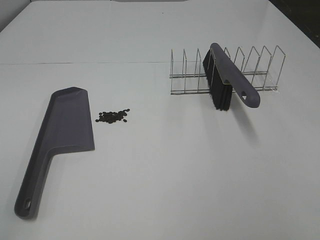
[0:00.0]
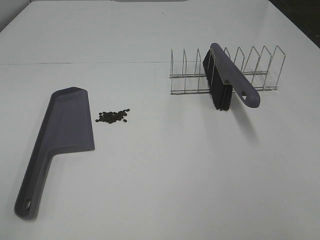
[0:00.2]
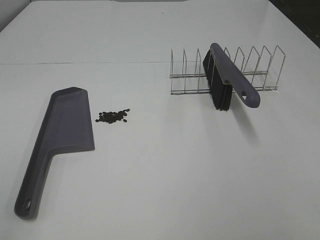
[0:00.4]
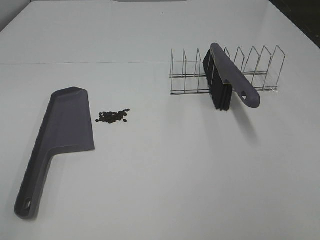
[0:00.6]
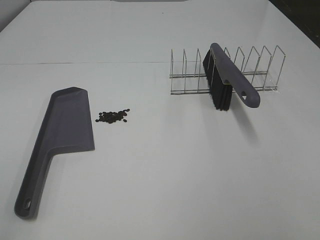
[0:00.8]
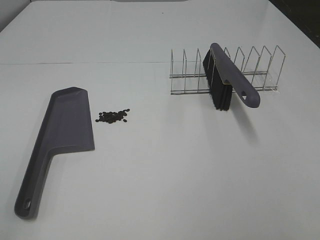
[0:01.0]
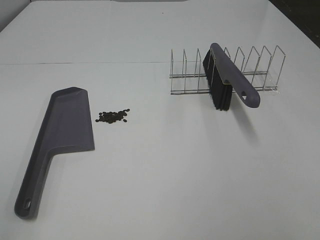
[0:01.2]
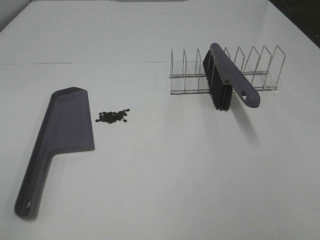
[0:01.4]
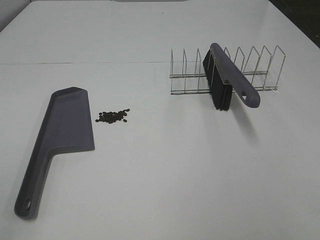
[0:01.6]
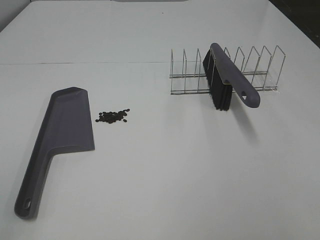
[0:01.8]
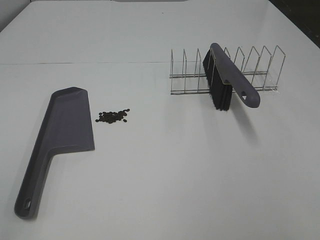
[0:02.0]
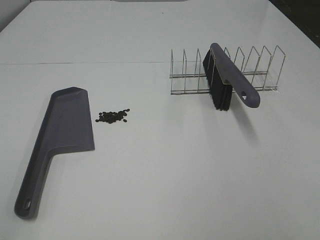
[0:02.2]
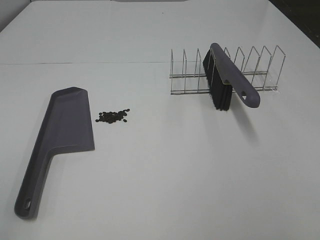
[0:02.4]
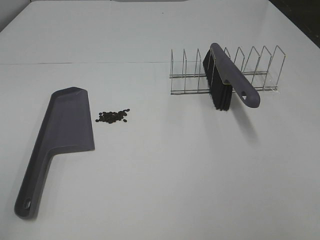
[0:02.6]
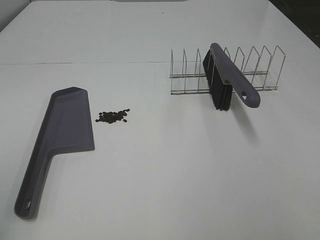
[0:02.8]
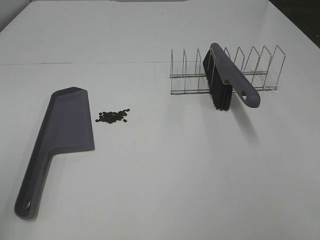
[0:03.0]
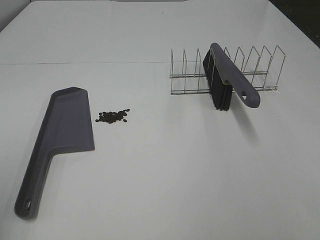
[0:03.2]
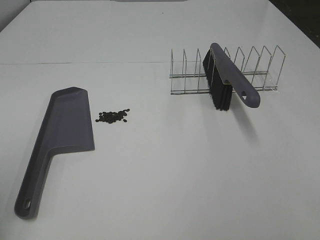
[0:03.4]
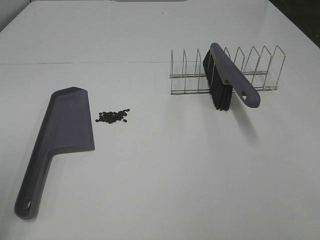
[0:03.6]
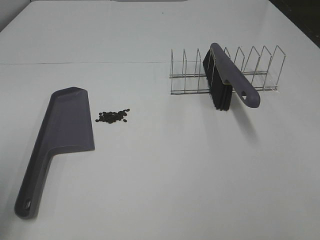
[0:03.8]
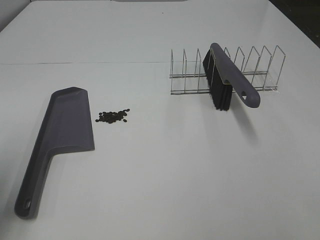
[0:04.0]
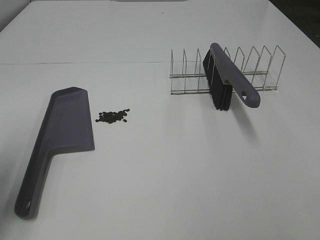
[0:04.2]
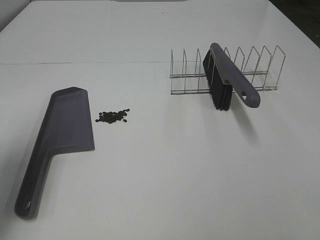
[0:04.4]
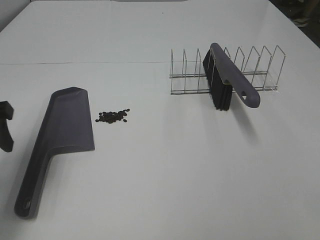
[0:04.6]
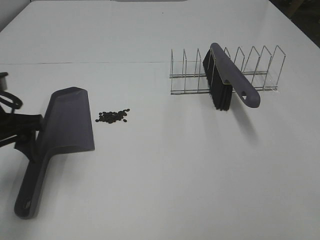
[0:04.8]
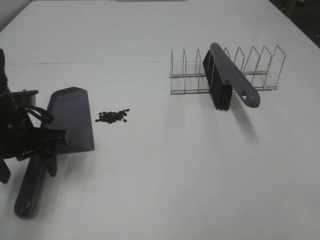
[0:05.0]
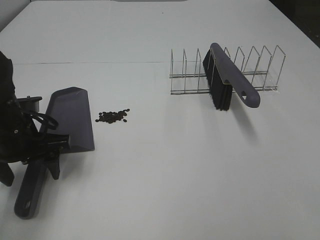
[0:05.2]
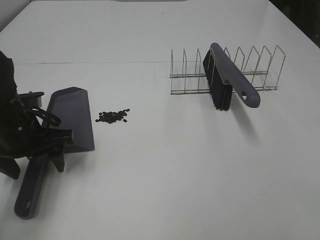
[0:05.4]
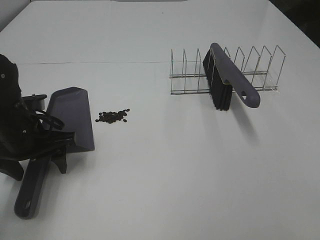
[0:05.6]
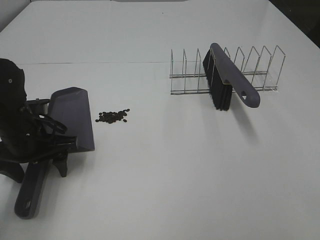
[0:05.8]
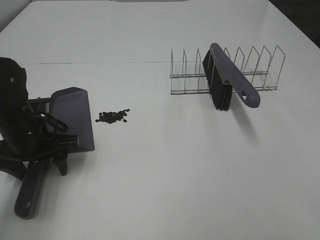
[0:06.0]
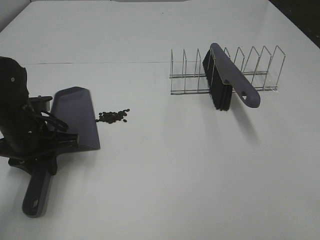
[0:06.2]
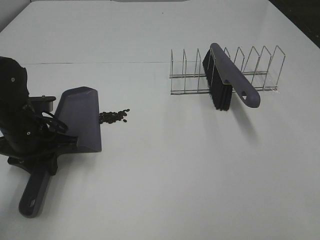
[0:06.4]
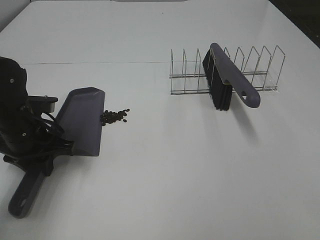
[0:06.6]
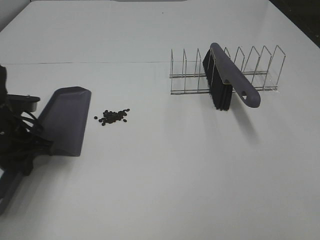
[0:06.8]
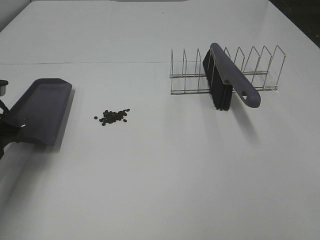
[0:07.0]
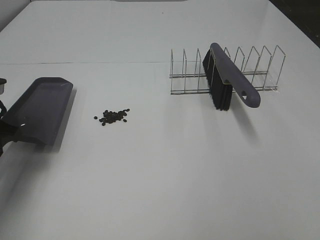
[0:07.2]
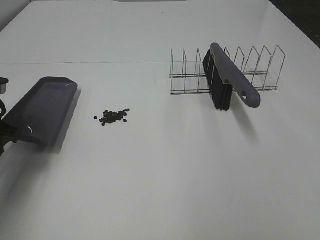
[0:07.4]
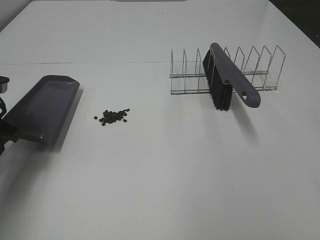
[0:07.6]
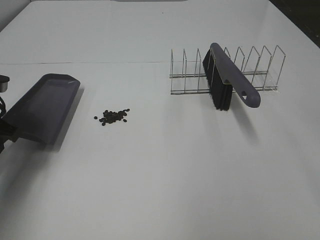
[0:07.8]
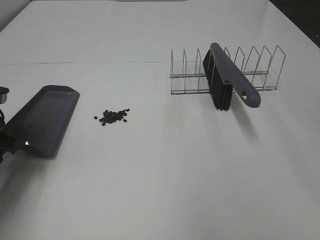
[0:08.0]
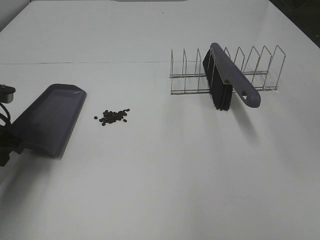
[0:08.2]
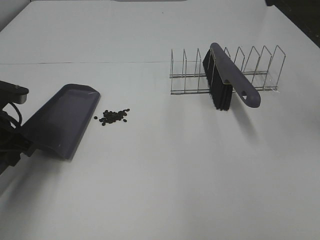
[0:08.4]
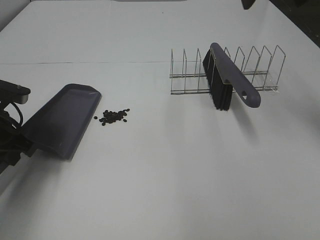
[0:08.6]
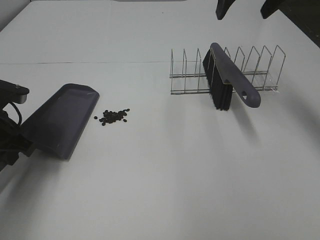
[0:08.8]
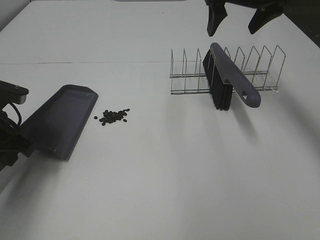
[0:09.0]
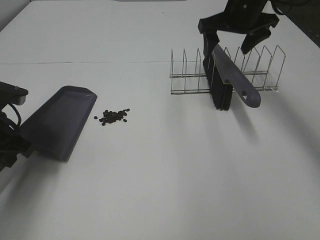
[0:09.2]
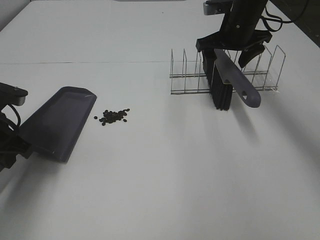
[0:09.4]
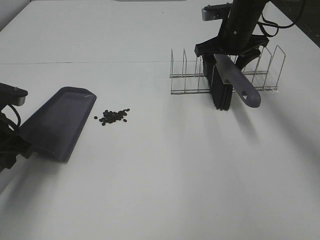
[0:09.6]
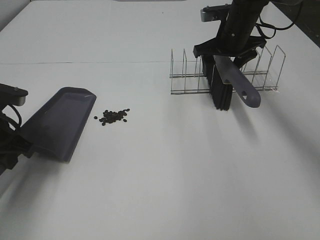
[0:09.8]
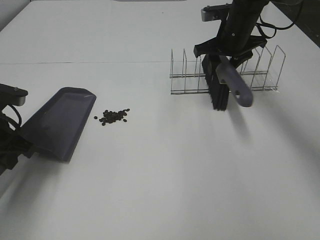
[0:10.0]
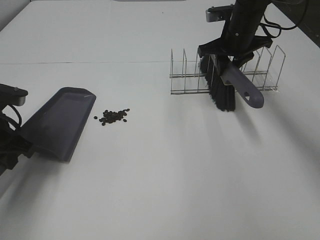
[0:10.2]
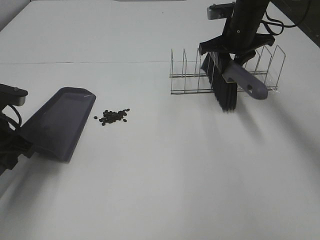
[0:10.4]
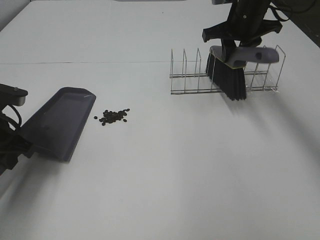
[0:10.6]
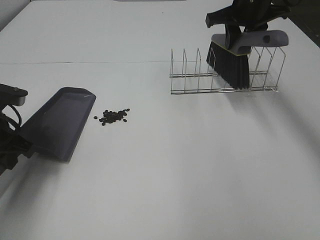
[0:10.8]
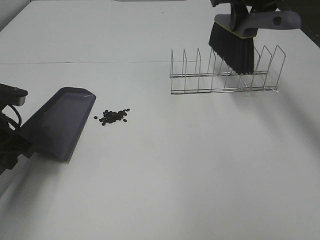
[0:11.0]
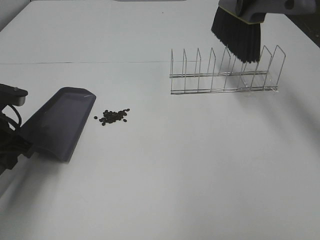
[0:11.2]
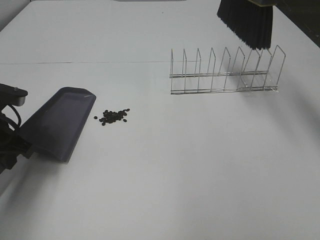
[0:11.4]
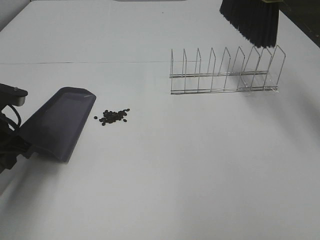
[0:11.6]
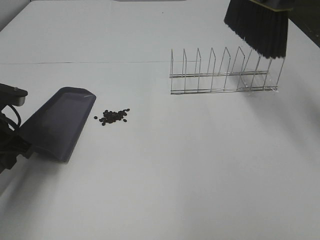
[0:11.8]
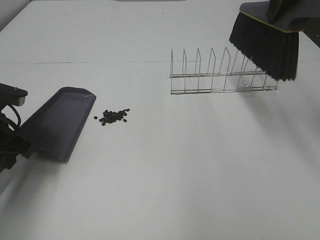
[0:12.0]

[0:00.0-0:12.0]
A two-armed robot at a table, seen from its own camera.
Task of the whole recording: Sweep Coffee Bean.
Step, 0.0 to 6.6 s: Left hand: grab the dustpan.
Step, 7.2 to 10.0 s: Right hand:grab the broom.
0.0 to 1.6 s: Both grippers stay about where they are.
3.0 to 4.4 s: The left gripper shifts some 15 cm forward.
4.4 to 6.0 s: The left gripper goes roughly 15 cm downward, to the right and forward.
6.0 to 7.6 s: The left gripper shifts some 10 cm to the left and upward, and closes its fingers.
7.6 to 9.0 s: The right gripper moves forward, some 35 cm.
9.0 to 10.4 s: The right gripper shifts roughly 10 cm downward, and closes.
10.4 to 12.0 s: The right gripper goes approximately 20 cm upward and backward.

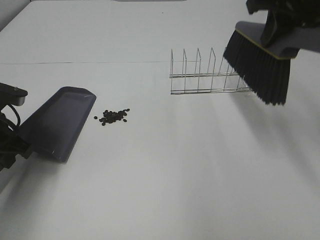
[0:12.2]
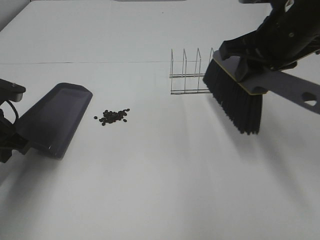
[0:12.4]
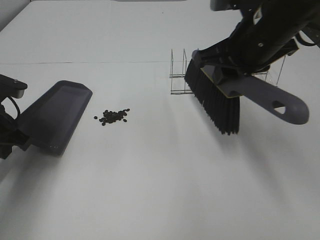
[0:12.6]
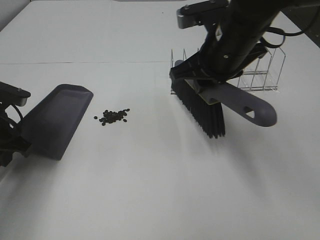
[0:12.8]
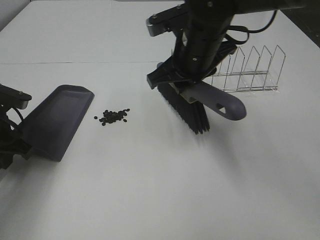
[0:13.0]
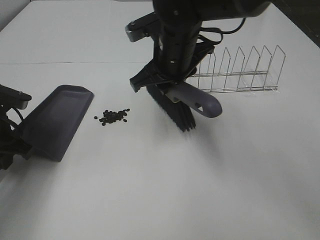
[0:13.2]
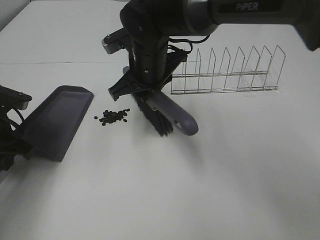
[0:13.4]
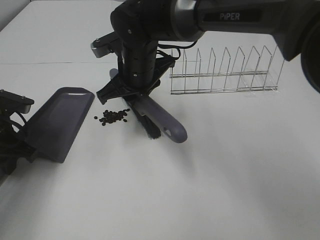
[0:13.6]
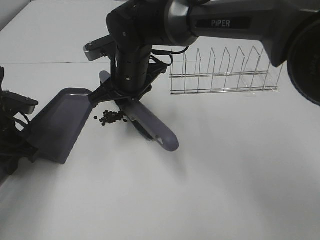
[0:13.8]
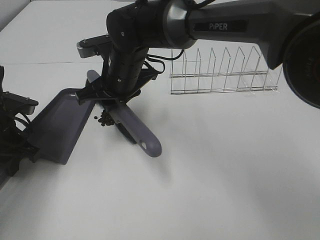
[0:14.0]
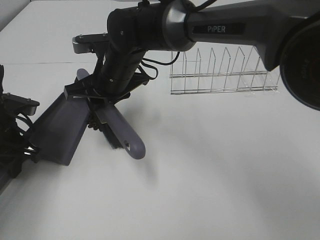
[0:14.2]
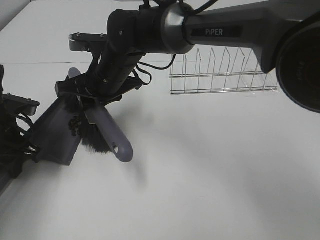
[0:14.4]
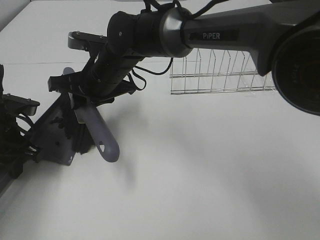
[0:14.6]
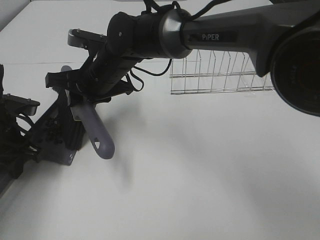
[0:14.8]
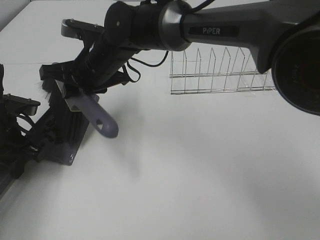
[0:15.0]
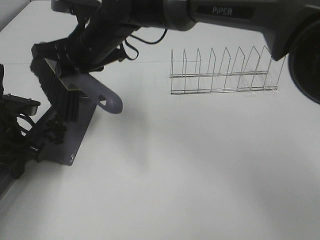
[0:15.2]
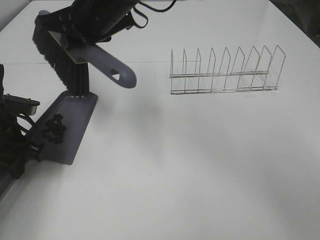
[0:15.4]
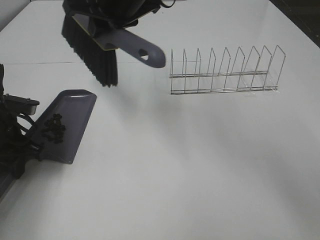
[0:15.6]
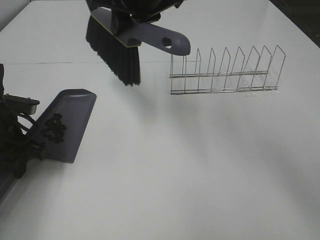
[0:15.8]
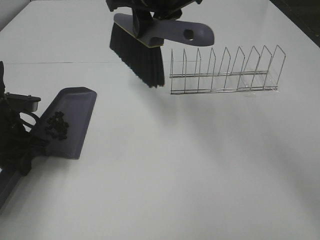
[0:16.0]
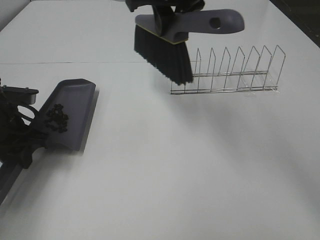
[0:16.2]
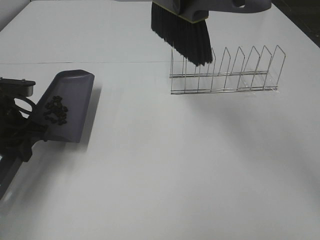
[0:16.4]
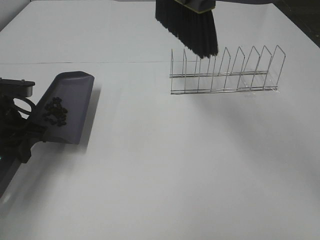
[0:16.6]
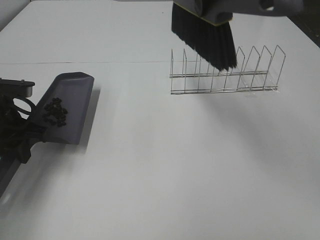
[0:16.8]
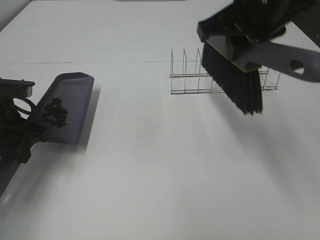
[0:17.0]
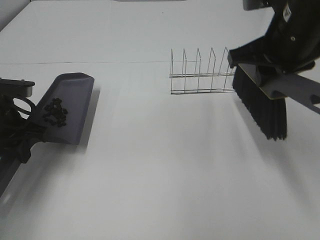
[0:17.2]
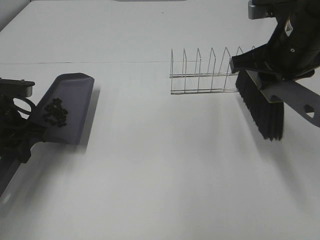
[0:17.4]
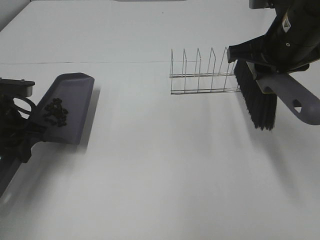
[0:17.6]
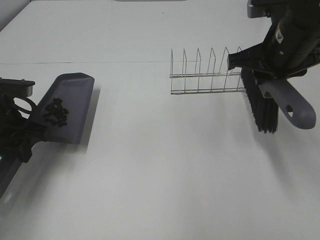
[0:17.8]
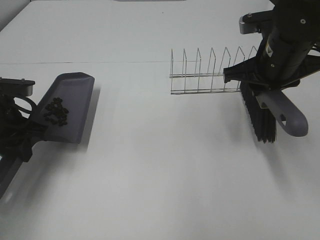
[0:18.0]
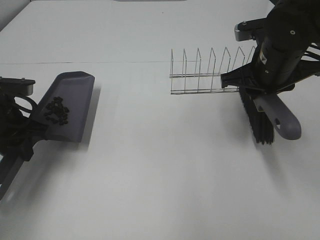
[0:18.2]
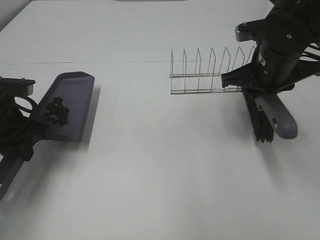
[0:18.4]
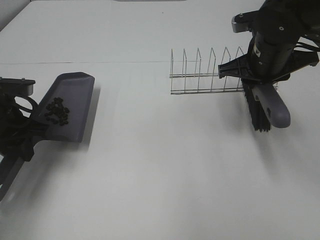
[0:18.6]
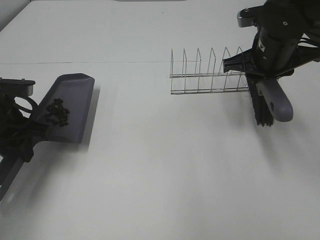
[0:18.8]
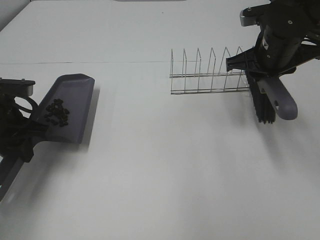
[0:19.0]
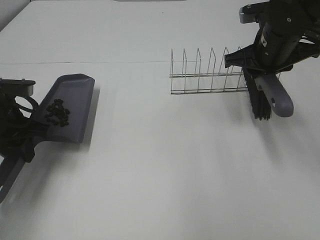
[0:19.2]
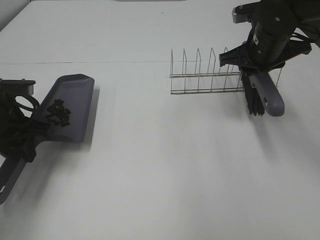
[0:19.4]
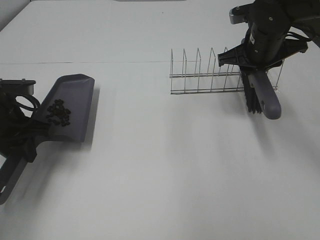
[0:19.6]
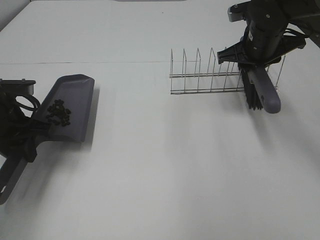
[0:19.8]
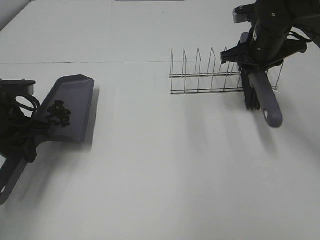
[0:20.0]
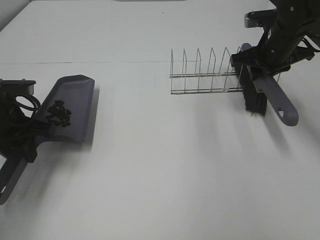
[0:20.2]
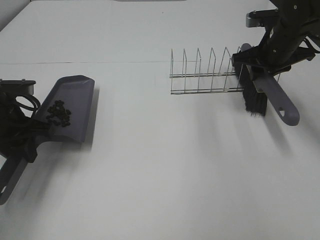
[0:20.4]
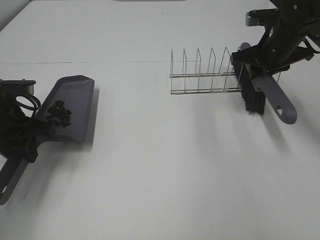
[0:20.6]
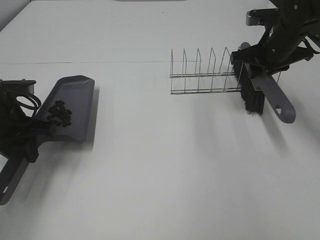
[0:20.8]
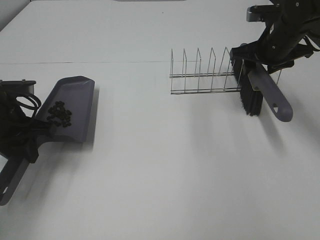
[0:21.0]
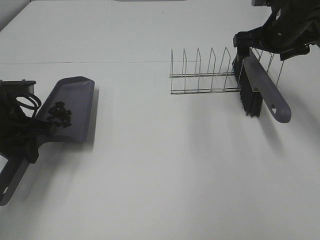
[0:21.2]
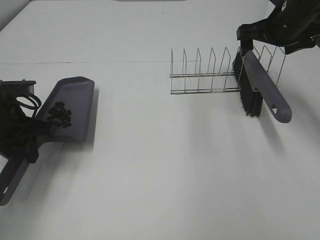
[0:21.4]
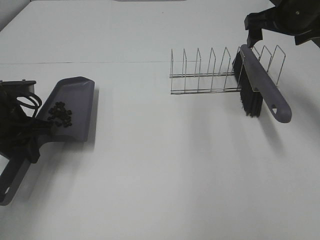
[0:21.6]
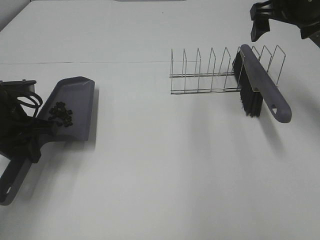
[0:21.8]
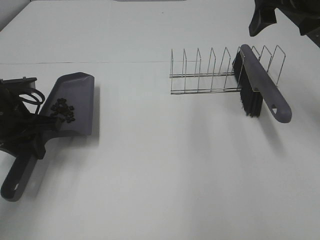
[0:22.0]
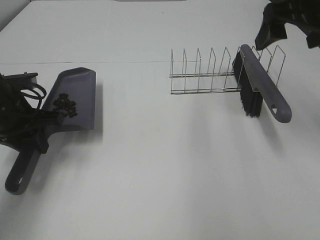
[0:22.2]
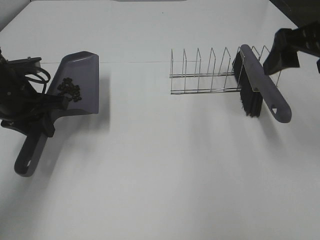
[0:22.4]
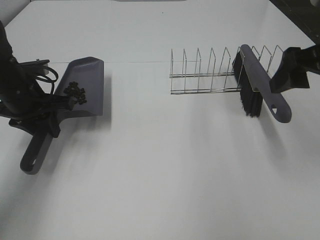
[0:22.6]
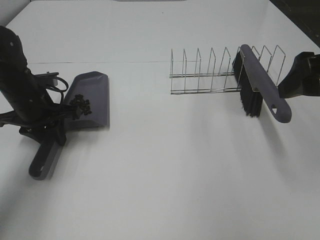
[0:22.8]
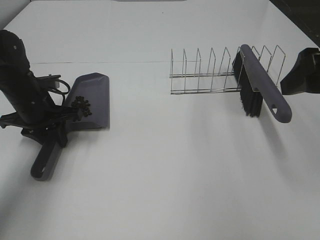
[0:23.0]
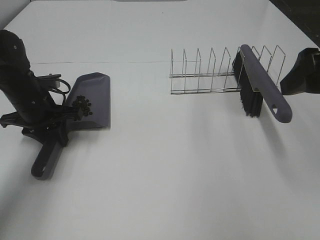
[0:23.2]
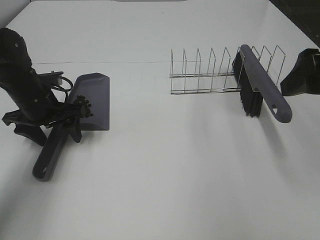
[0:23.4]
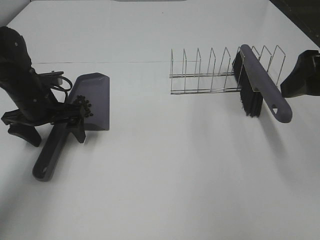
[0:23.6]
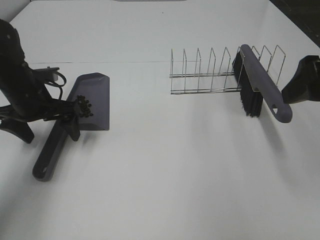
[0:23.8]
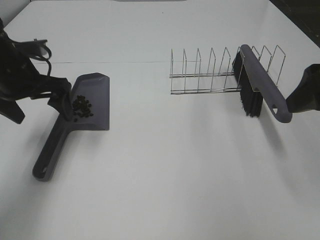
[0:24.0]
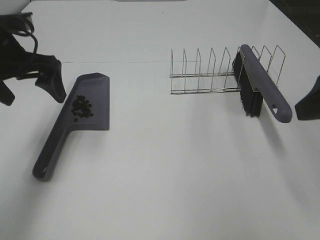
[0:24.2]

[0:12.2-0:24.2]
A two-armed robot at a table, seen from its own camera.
Task of the whole recording: Sweep Coffee Bean.
Step, 12.2 to 15.2 s: Right hand:sweep the coffee beans into the dustpan.
Step, 15.4 to 21.0 s: Right hand:place the broom on the rack.
Step, 21.2 to 23.6 s: Left hand:place the dustpan on the table.
12.2 to 13.8 s: The right gripper heads to the left and downward, covering some 30 cm.
13.8 to 15.2 s: The right gripper goes some 5 cm upward.
15.2 to 16.6 s: The right gripper heads upward and to the right, covering roughly 20 cm.
16.6 to 18.2 s: The right gripper moves downward and to the right, roughly 20 cm.
18.2 to 19.8 s: The right gripper moves forward, about 10 cm.
19.8 to 21.2 s: The right gripper changes place by about 5 cm, and opens up.
21.2 to 22.6 s: The right gripper is displaced backward by approximately 20 cm. Meanwhile the left gripper ends up roughly 5 cm from where it was.
22.6 to 24.2 s: The right gripper is displaced backward by some 5 cm. The left gripper travels upward by roughly 10 cm, and opens up.
